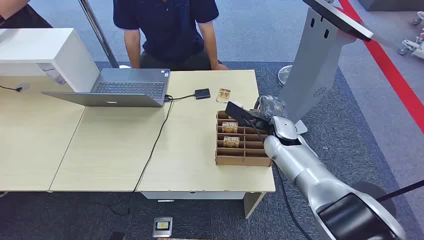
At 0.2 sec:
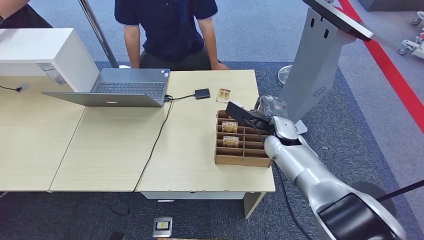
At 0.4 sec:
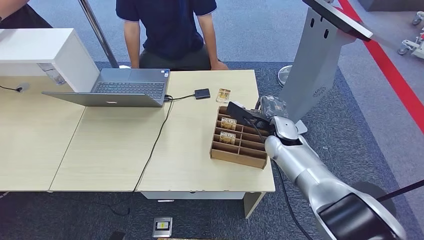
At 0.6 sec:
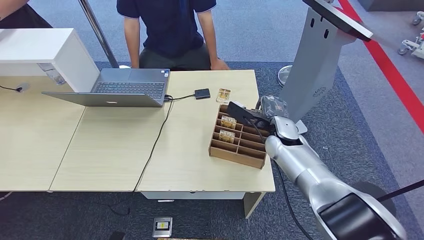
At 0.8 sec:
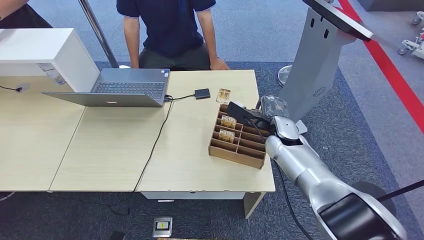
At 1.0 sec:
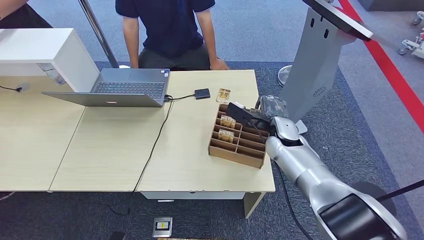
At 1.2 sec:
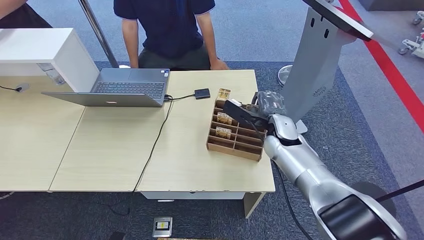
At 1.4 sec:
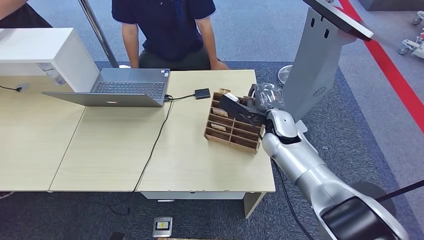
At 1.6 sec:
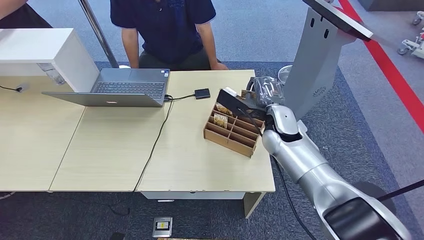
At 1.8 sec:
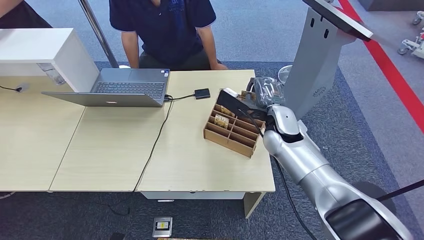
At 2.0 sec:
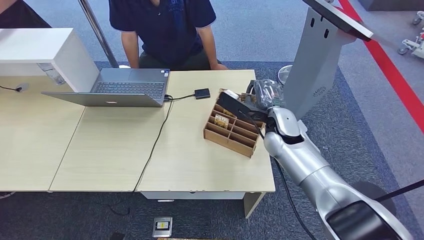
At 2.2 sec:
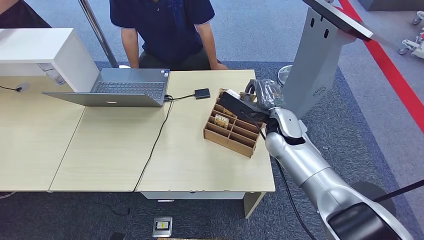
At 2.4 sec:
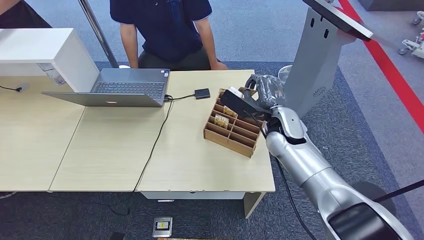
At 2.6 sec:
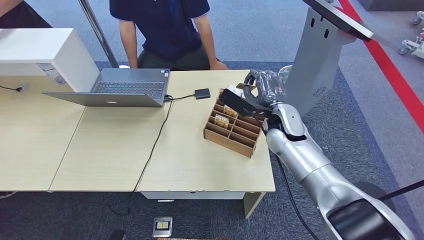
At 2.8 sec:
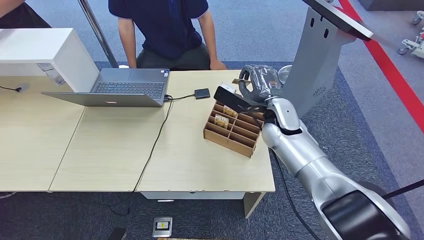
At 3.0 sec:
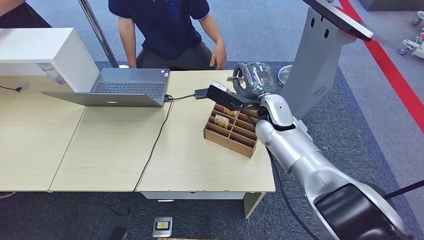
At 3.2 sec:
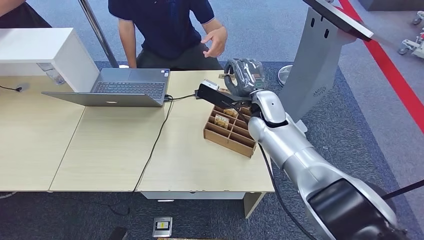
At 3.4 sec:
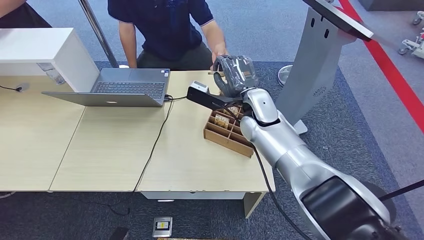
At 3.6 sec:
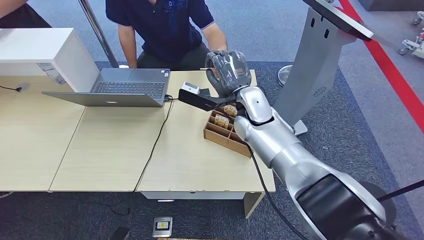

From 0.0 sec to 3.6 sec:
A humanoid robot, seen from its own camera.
Step, from 0.0 sec to 2.6 sec: Pick up the key card from the card box.
Step, from 2.8 sec to 3.6 sec: Hand the key card to the target.
From 1.8 sec to 3.6 sec: The right hand heads to the left, covering some 5 cm.
